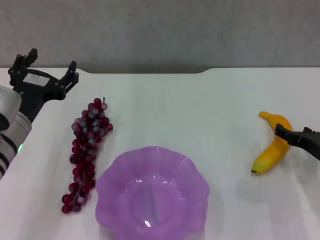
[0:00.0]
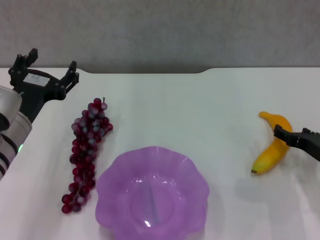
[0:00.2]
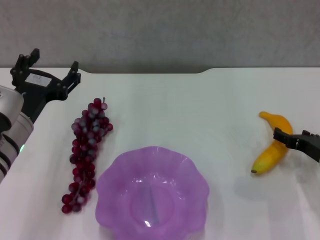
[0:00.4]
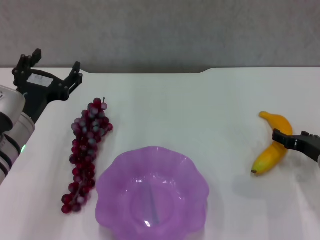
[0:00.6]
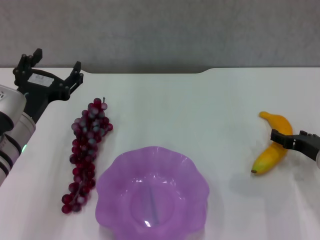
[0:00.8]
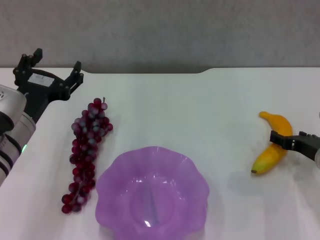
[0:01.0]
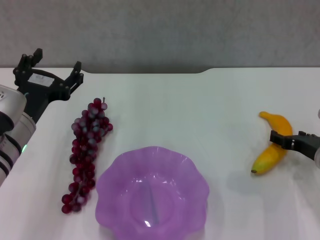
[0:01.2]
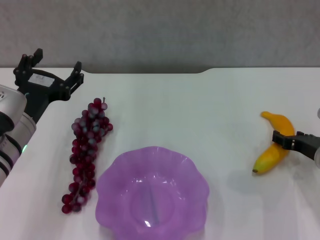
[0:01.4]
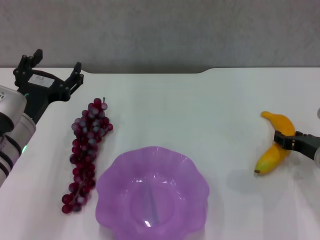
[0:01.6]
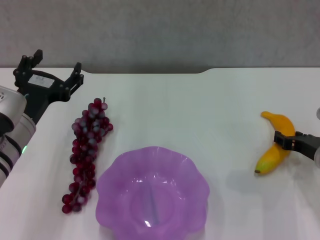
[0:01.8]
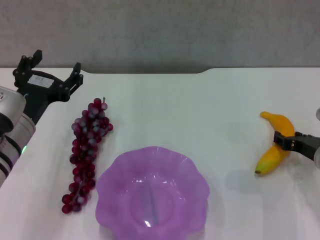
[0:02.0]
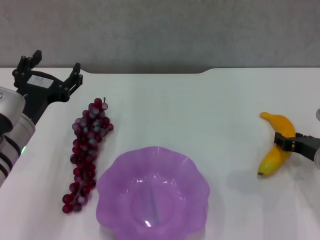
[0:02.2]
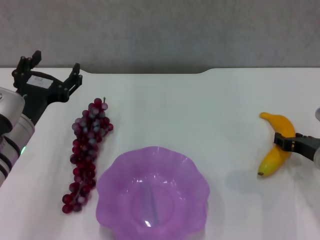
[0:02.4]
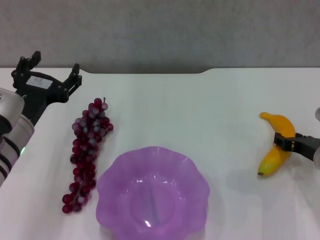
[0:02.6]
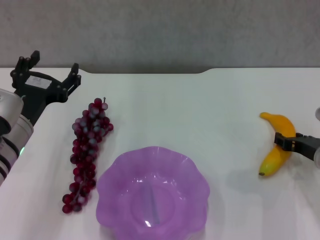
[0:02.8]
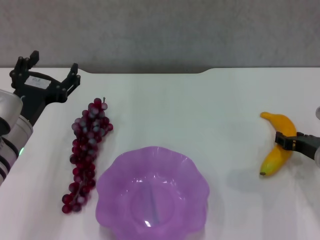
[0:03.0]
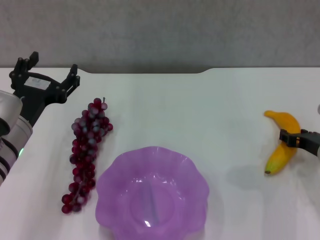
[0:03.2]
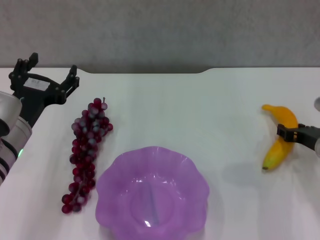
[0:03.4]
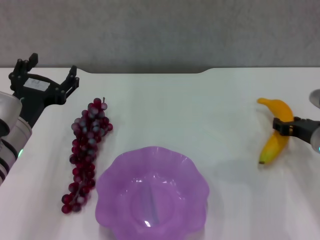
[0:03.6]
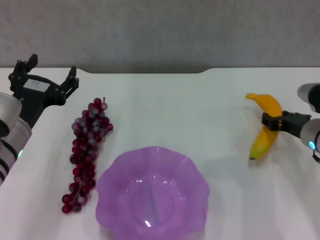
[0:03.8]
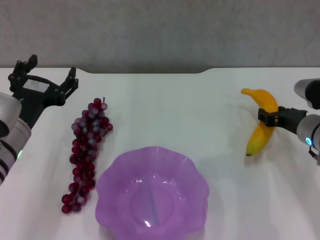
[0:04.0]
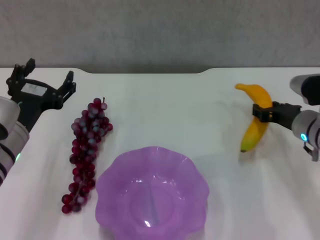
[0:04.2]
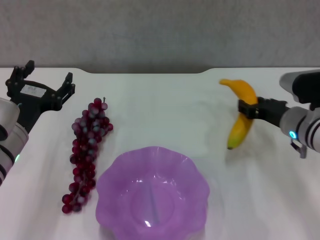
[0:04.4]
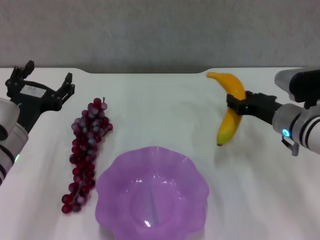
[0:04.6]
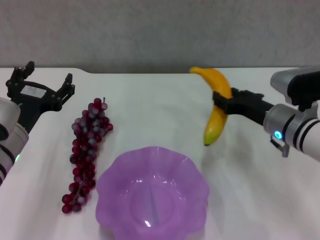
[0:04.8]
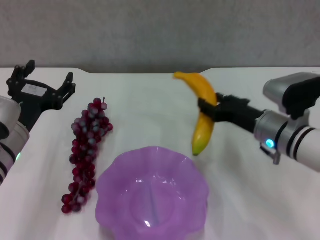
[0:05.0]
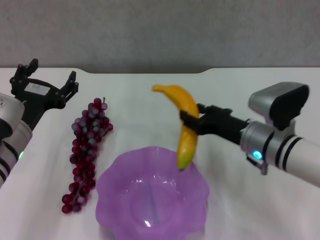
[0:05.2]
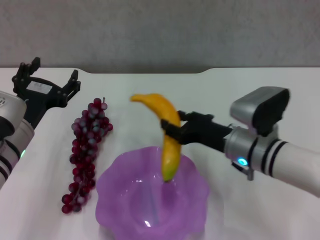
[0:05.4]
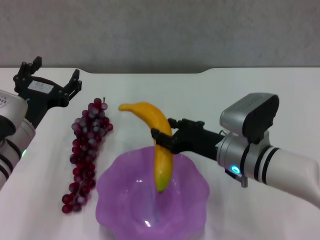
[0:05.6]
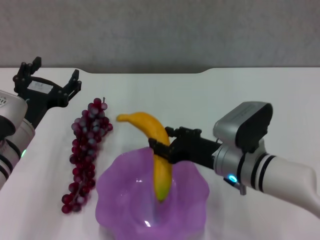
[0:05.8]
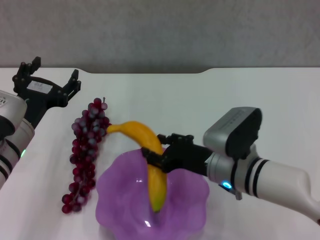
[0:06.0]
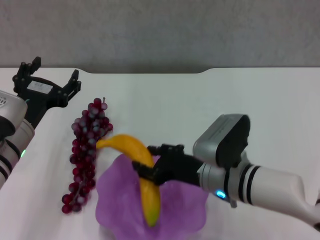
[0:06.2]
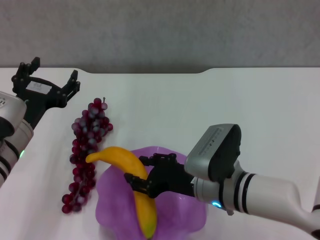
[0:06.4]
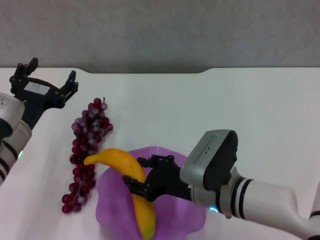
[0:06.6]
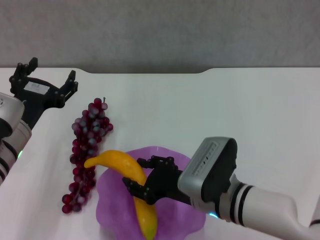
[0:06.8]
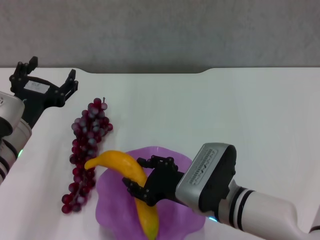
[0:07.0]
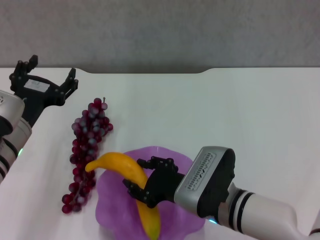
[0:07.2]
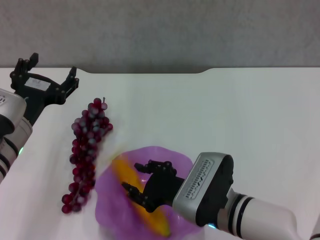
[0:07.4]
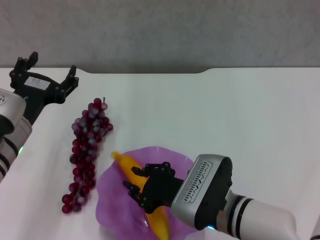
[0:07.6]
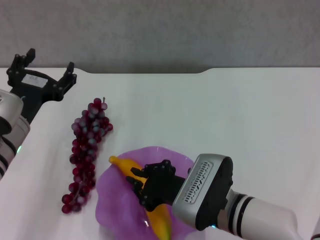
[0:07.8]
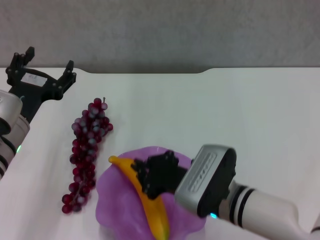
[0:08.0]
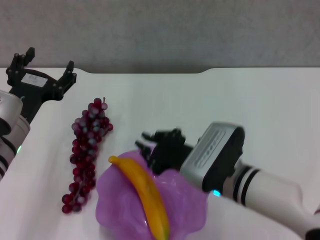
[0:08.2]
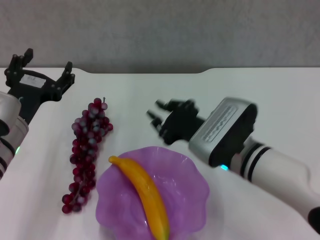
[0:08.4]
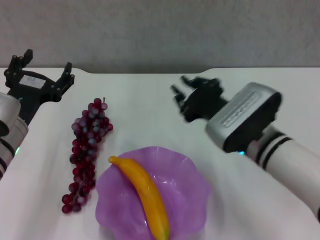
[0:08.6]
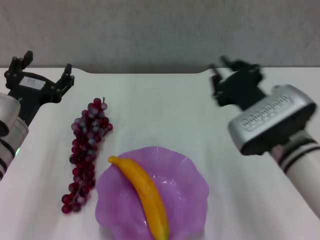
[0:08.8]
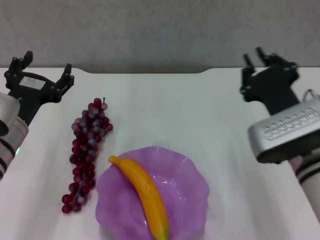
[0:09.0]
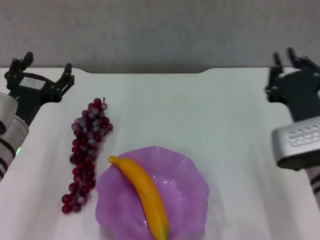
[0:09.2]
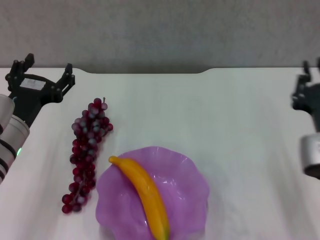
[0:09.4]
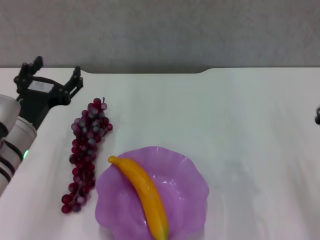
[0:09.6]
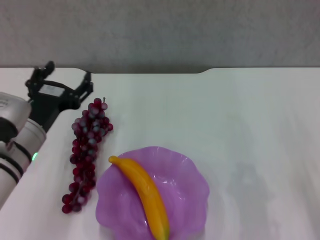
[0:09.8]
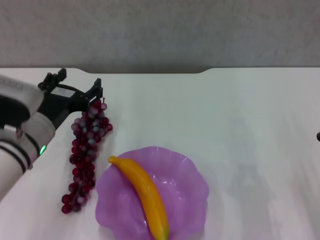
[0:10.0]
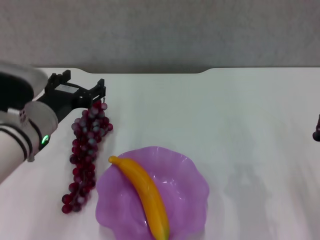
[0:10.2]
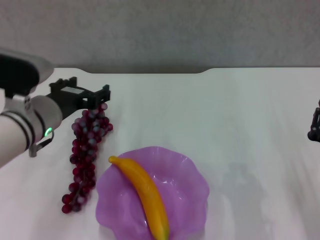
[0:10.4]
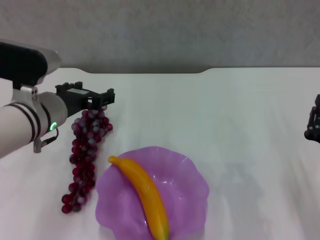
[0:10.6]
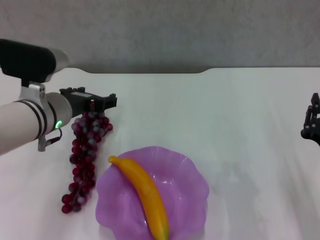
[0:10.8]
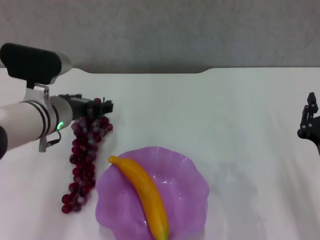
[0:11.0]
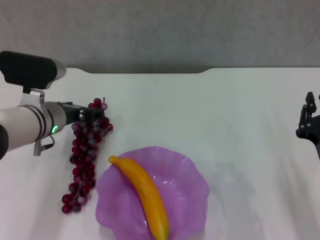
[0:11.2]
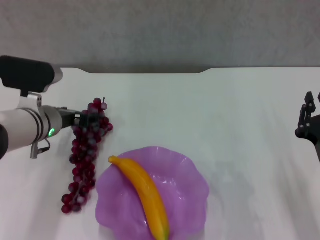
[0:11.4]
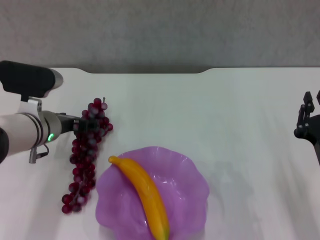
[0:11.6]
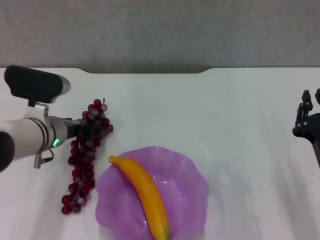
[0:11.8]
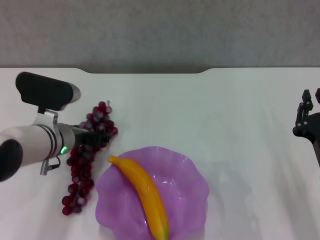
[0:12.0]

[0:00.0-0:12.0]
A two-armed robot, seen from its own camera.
Step, 0:00.0 to 0:02.6: Grasp the banana with right gripper.
Step, 0:02.8 to 0:07.6: Place the banana in the purple plate with right gripper.
0:00.0 to 0:01.6: There are only small adjustments of the grippers.
0:01.6 to 0:03.0: The two grippers keep their place.
0:03.0 to 0:04.4: The right gripper is displaced to the left by about 5 cm.
0:04.4 to 0:06.0: The right gripper shifts some 15 cm to the left and backward.
0:06.0 to 0:07.6: The right gripper is displaced backward by some 5 cm.
0:07.6 to 0:09.0: The right gripper travels to the right and upward by approximately 10 cm.
0:09.0 to 0:10.4: The left gripper moves about 5 cm, while the right gripper travels to the right, downward and backward by some 10 cm.
0:10.4 to 0:12.0: The left gripper travels downward by some 5 cm.

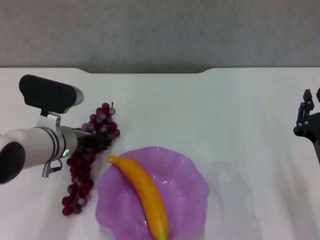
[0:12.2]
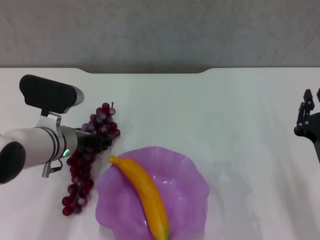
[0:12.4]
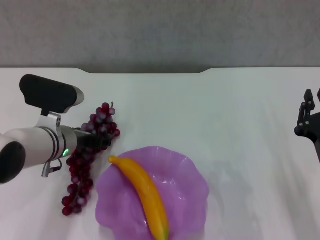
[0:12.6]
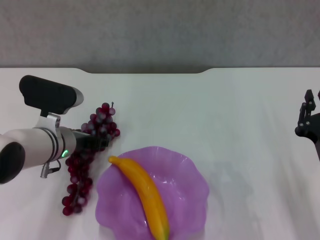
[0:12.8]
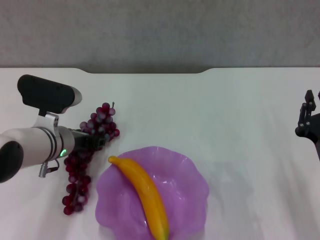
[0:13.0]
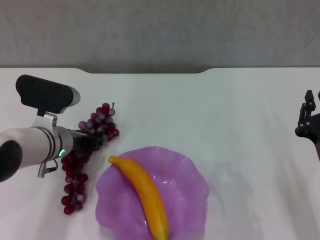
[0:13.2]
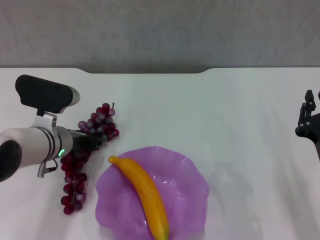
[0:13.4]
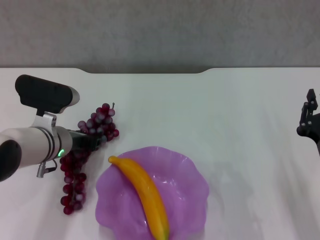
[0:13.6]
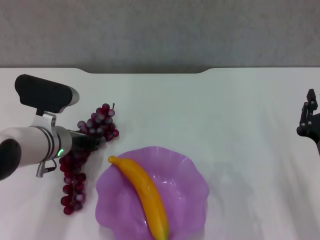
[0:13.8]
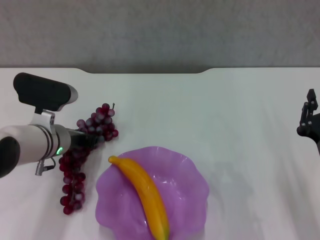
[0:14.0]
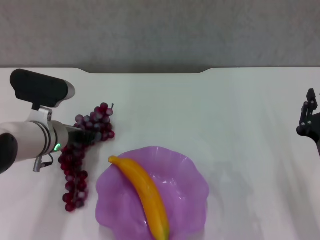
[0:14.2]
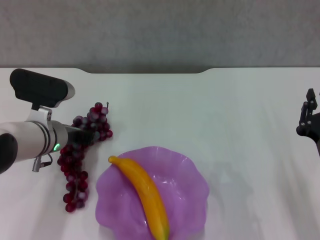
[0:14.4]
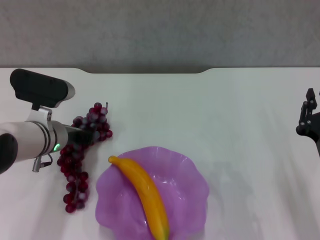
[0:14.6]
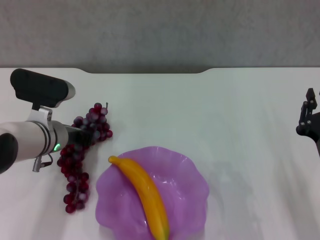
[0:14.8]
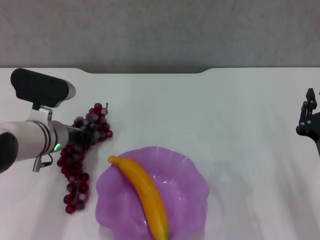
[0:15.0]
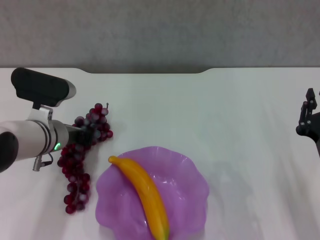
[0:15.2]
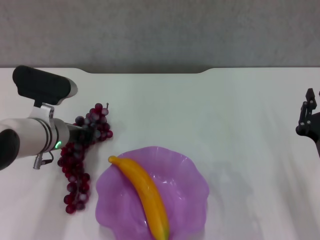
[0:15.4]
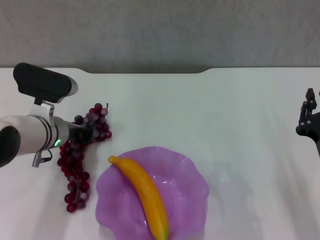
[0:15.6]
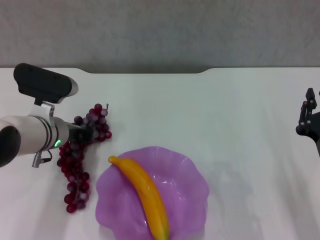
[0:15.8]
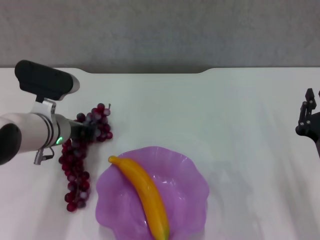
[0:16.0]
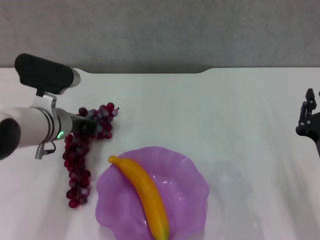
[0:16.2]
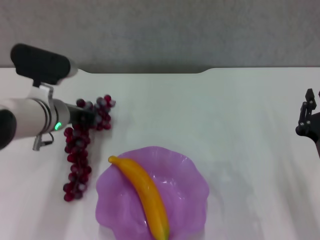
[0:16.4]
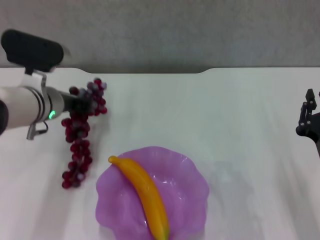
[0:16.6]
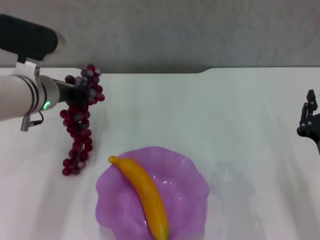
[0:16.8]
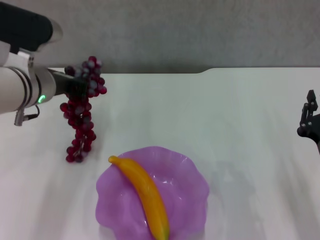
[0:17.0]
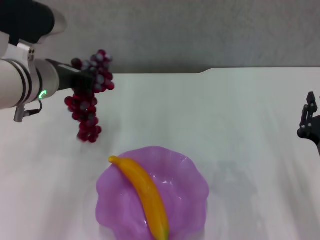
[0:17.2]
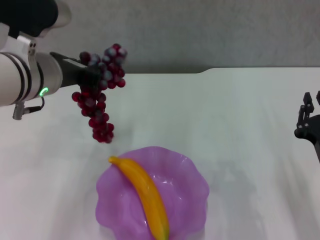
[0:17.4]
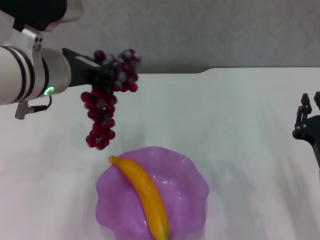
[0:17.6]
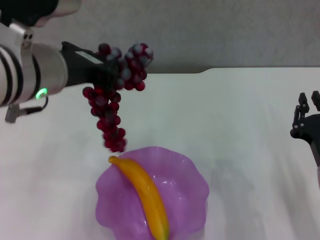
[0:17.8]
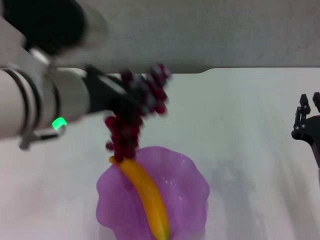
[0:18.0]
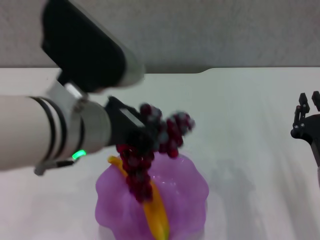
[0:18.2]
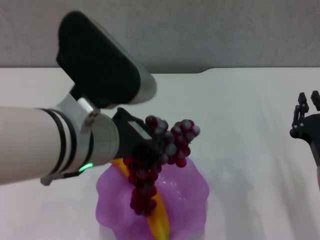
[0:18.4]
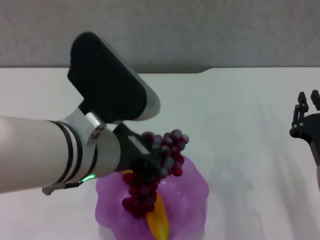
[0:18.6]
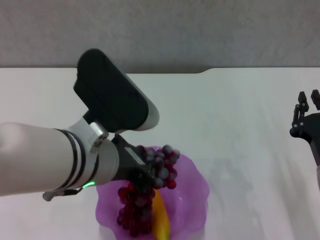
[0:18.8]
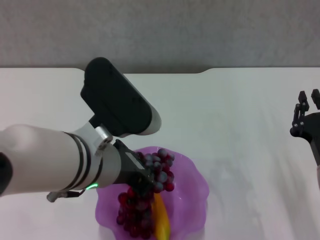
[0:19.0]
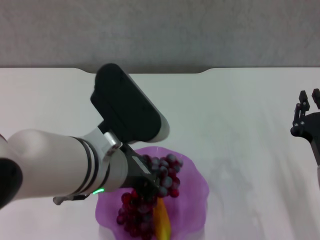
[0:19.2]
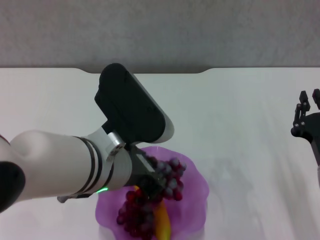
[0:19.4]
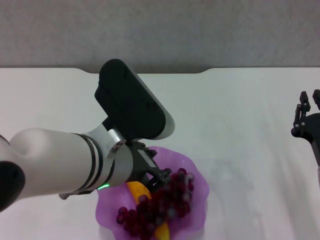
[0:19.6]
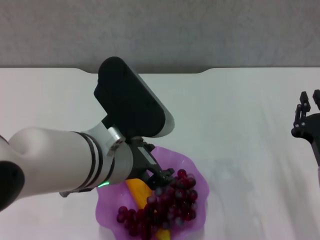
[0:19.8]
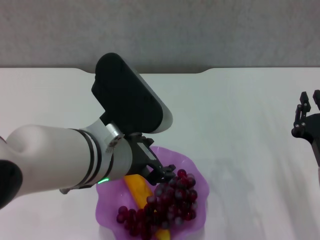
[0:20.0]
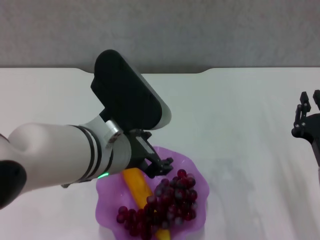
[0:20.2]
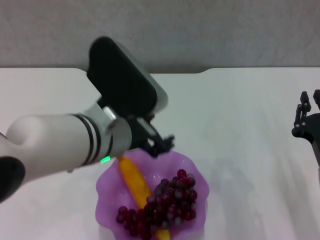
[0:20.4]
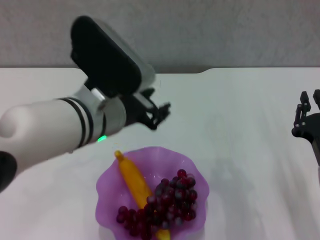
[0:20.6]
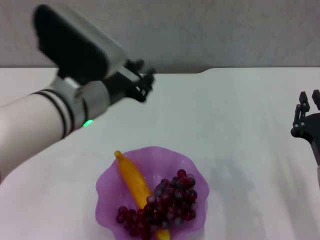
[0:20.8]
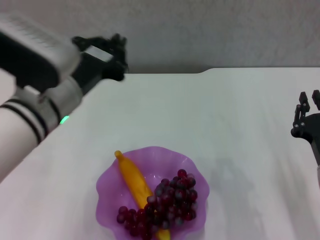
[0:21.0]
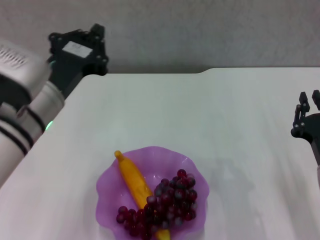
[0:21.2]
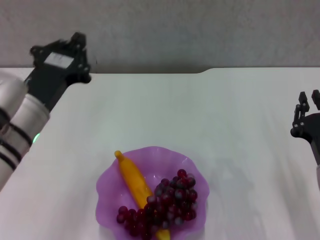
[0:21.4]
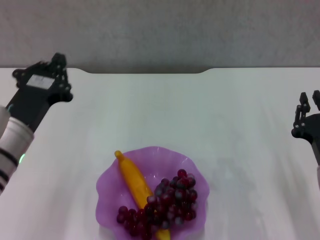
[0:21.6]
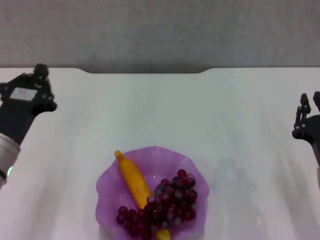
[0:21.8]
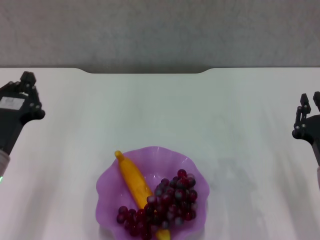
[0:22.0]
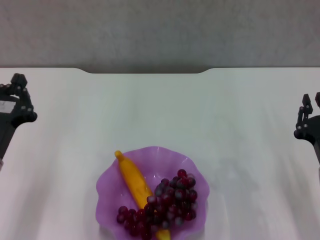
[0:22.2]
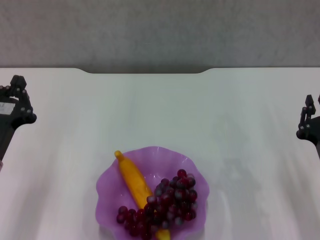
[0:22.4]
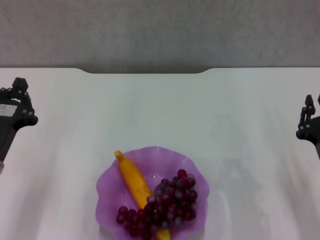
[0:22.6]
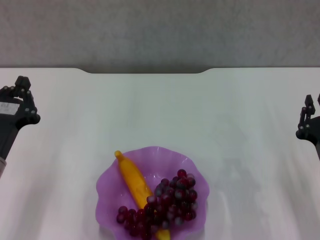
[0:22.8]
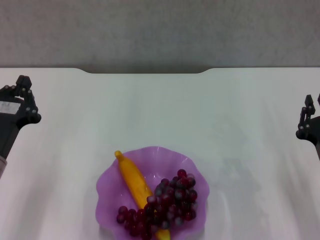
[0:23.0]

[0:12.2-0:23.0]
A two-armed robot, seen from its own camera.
Step, 0:14.2 to 0:19.8: Place the grape in the purple plate with left gripper.
0:12.2 to 0:13.8: The left gripper closes up.
0:13.8 to 0:15.2: Both grippers stay about where they are.
0:15.2 to 0:16.8: The left gripper goes about 10 cm upward.
0:16.8 to 0:18.4: The left gripper goes roughly 20 cm backward, to the right and upward.
0:18.4 to 0:20.0: The left gripper opens its fingers.
0:20.0 to 0:21.4: The left gripper goes approximately 10 cm to the left, and closes.
0:21.4 to 0:23.0: The left gripper is displaced downward and to the left by approximately 10 cm.
